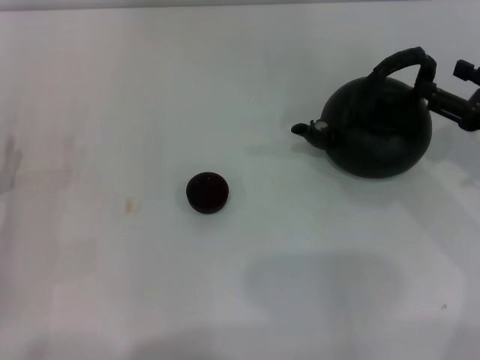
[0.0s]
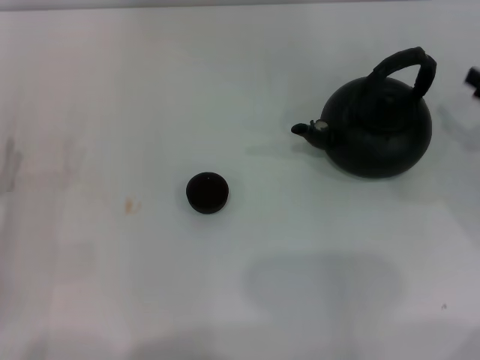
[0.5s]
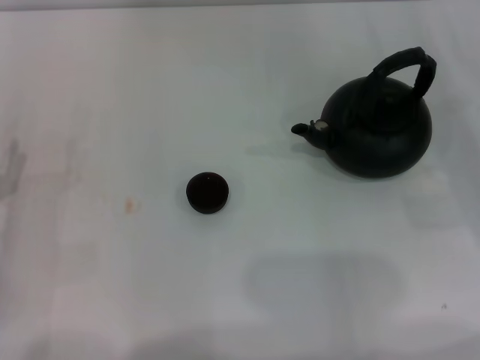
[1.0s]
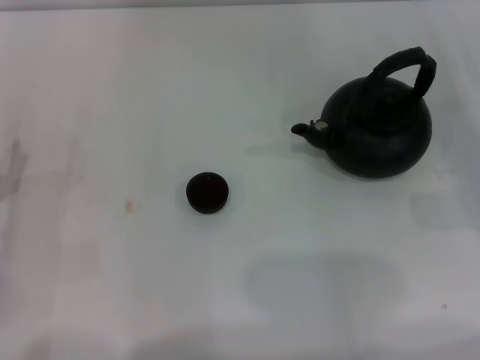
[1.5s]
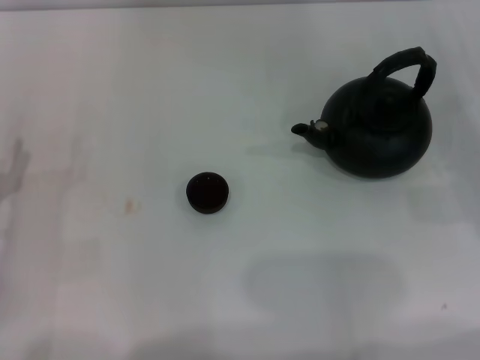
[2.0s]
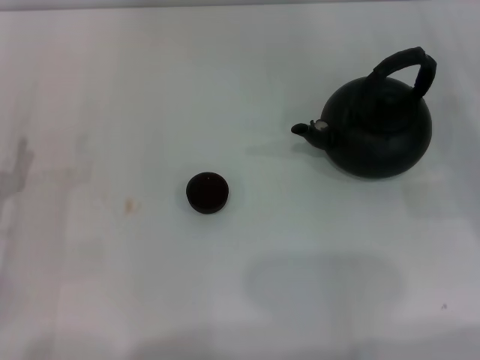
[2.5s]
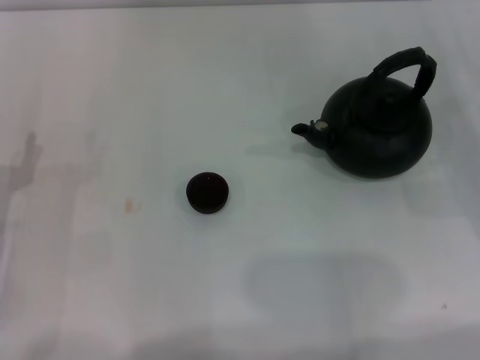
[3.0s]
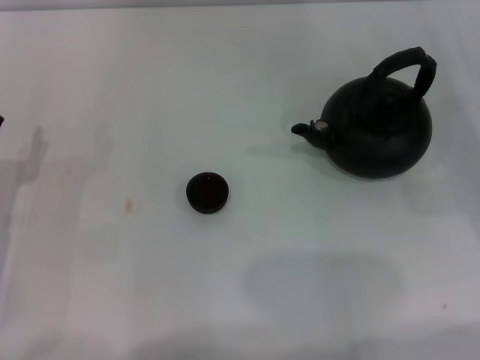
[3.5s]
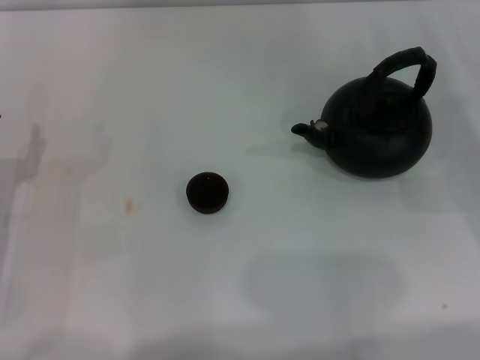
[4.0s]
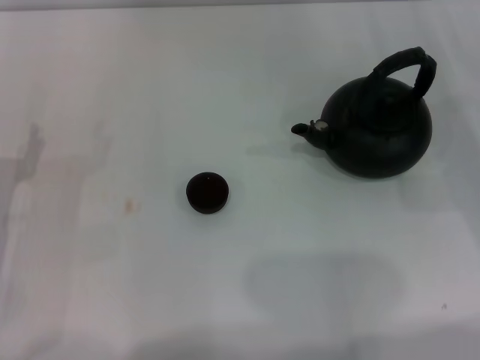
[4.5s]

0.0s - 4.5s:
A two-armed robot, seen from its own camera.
Task of the whole recording: Grasp the handle of the teapot with one hand and pour tea into the teacup.
0.0s - 2.0s: The right gripper moves some 5 cm.

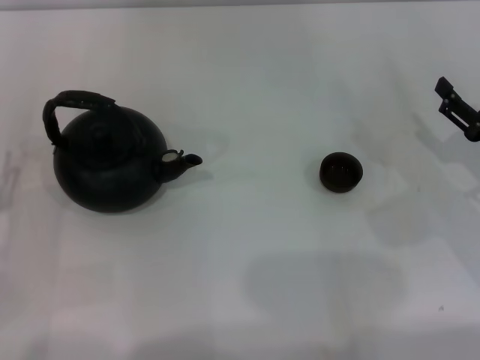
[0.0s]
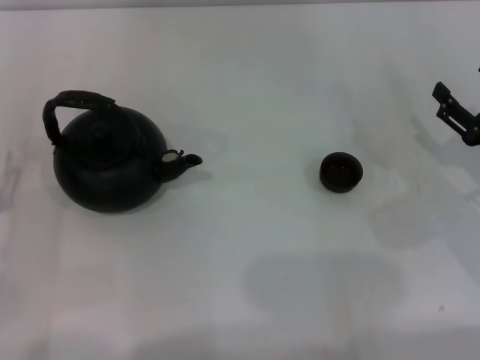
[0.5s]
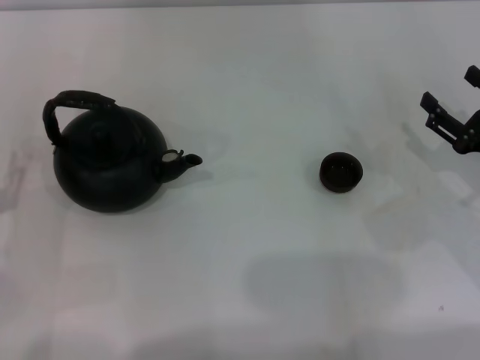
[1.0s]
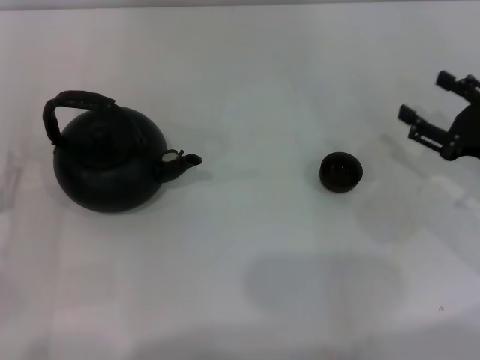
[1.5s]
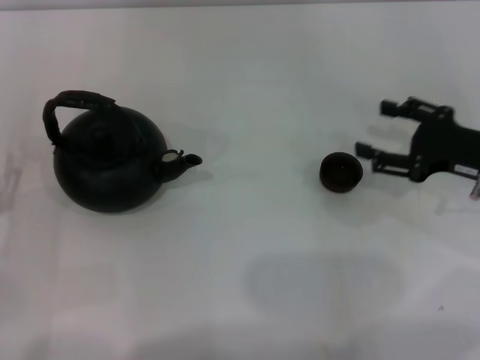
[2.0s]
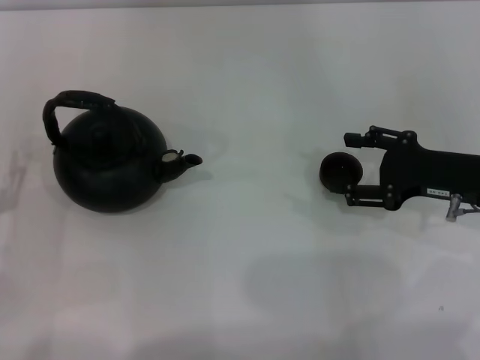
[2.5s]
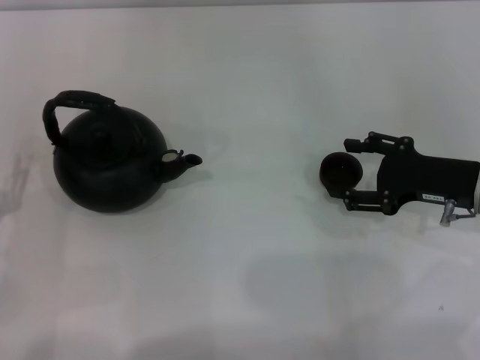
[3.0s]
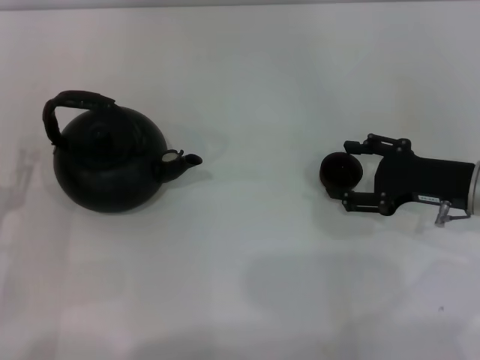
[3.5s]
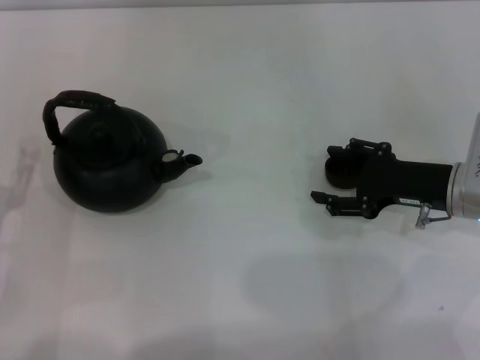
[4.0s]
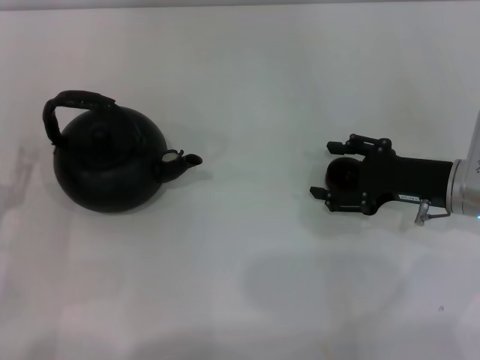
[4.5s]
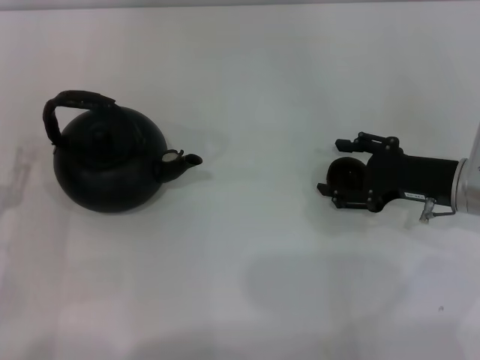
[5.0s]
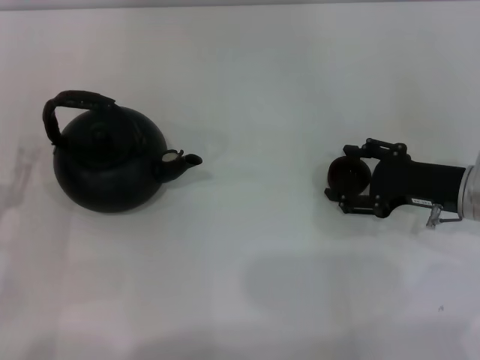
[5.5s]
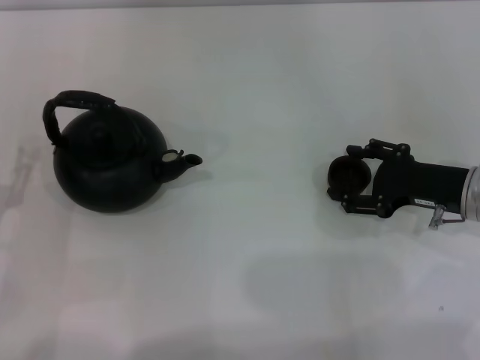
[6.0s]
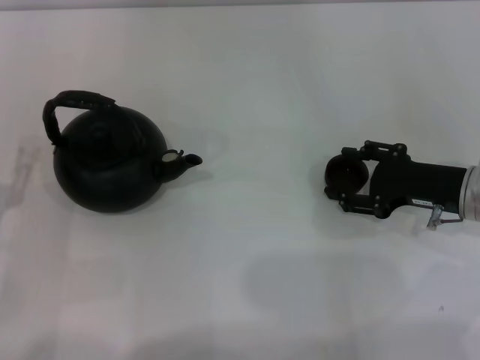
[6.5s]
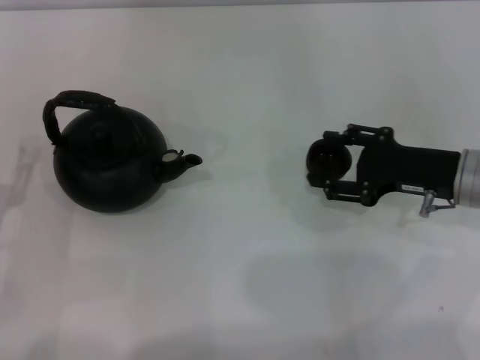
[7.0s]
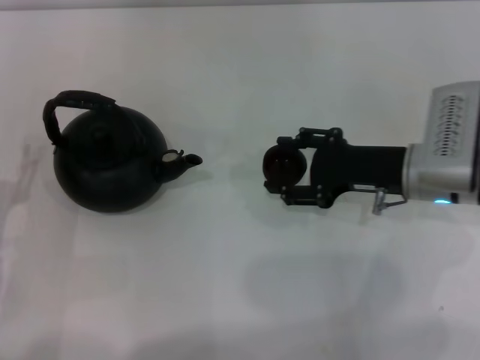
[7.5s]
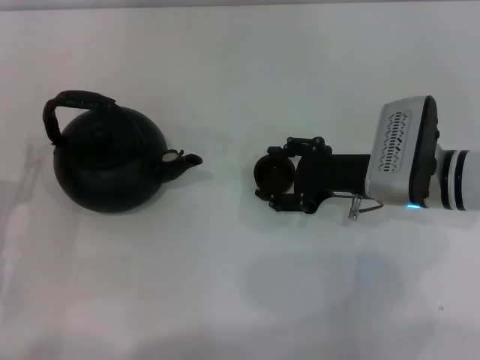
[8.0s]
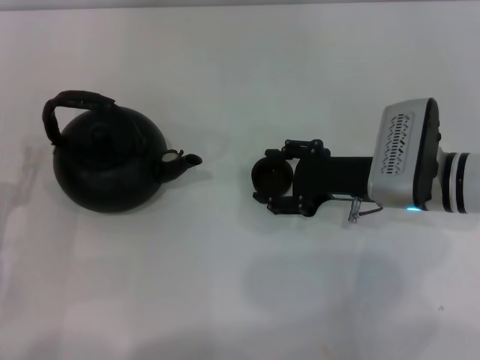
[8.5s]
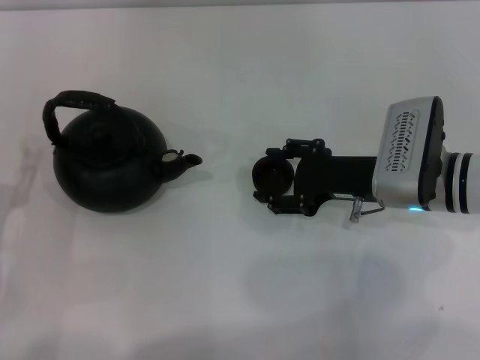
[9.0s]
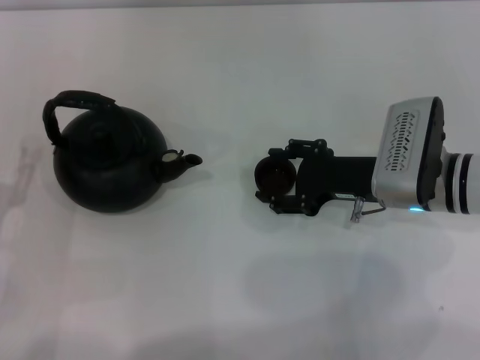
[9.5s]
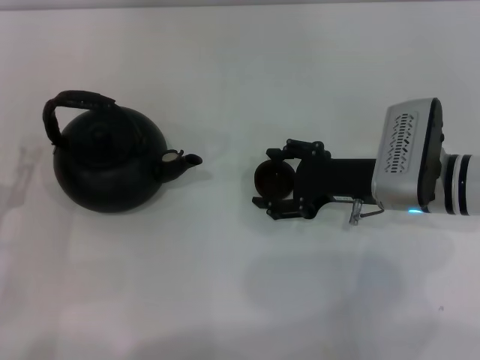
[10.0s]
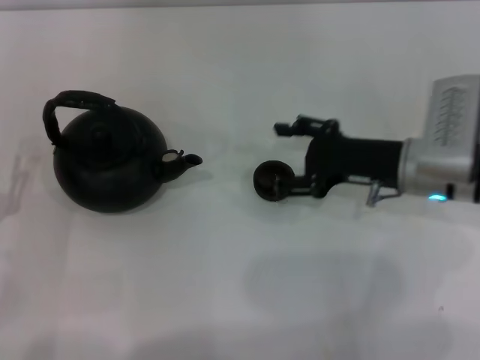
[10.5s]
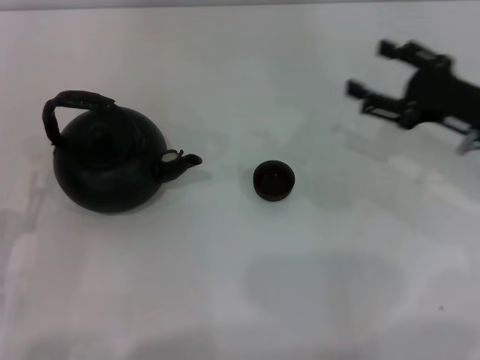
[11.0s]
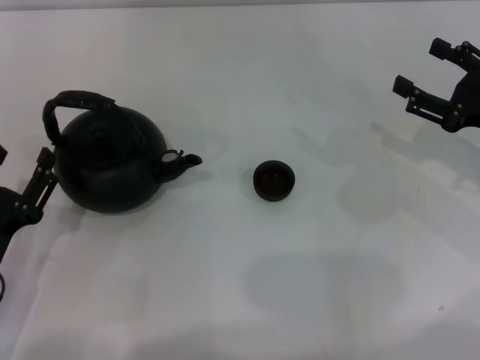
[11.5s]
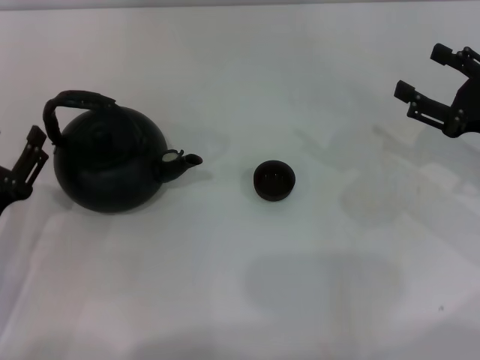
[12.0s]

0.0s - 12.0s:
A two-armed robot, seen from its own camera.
Task of the whole recording: Grasp the handle of the teapot with one hand and pour tea into the teacup.
Step, 0.0s - 6.5s: Pick up the teacup with the right gripper.
Step, 7.0s - 10.5s: Place the teacup in the center of view with the right gripper.
2.0s - 4.0s: The right gripper ends up about 5 cm from where it was.
4.0s - 6.0s: There are only small adjustments of the grippers.
6.0s - 8.0s: The right gripper shifts about 10 cm to the left.
8.0s - 10.0s: The right gripper opens its fingers.
10.0s - 12.0s: The right gripper travels to the right by some 15 cm, and opens up.

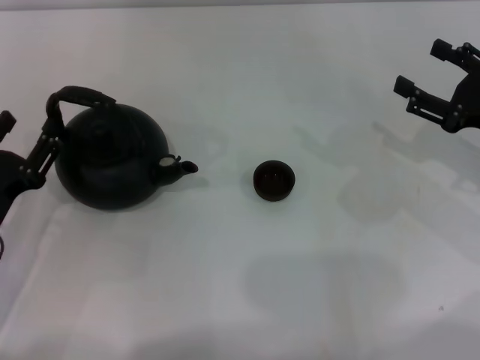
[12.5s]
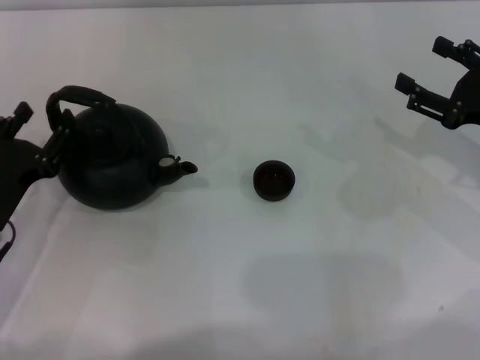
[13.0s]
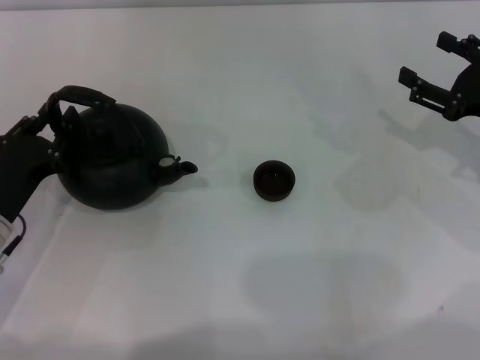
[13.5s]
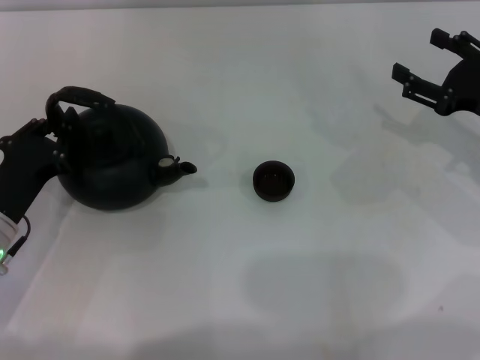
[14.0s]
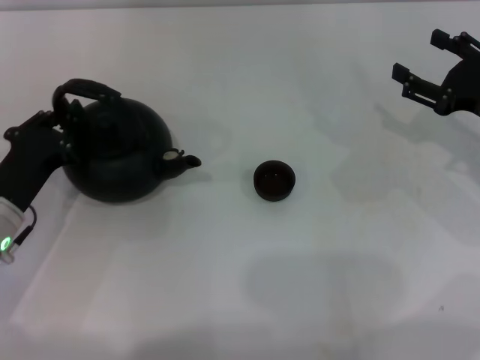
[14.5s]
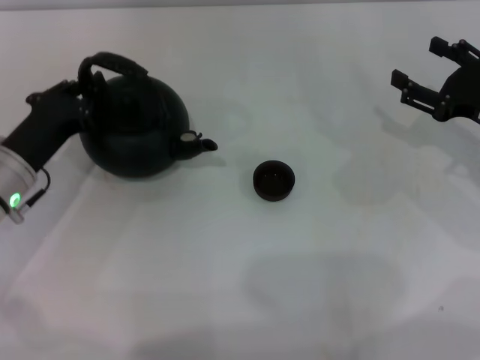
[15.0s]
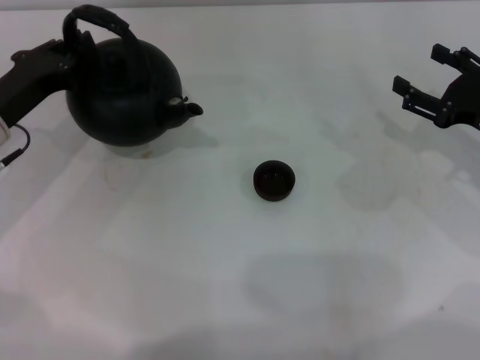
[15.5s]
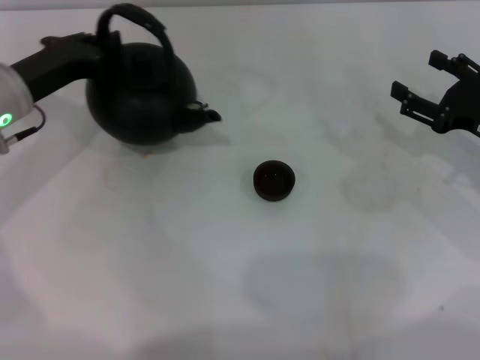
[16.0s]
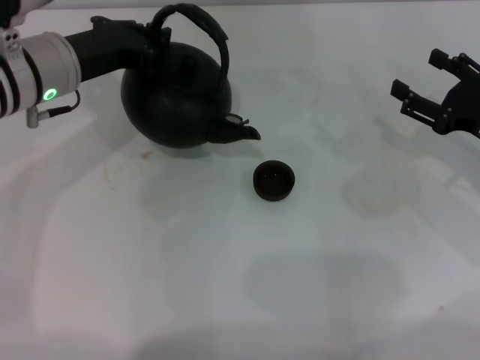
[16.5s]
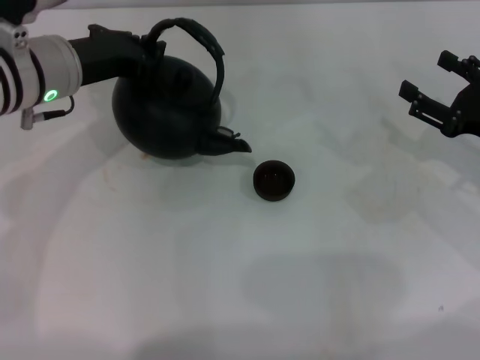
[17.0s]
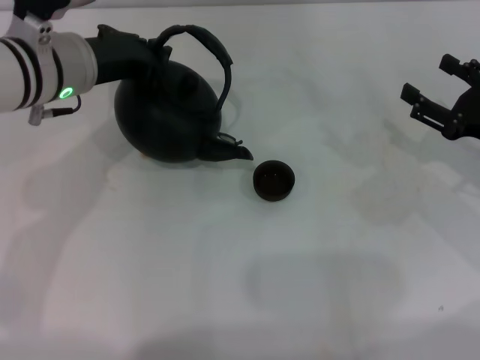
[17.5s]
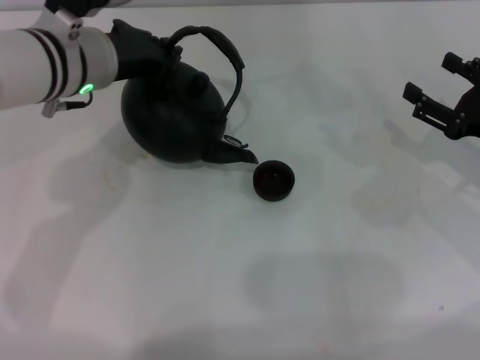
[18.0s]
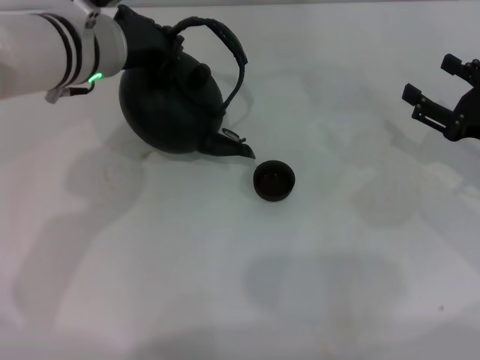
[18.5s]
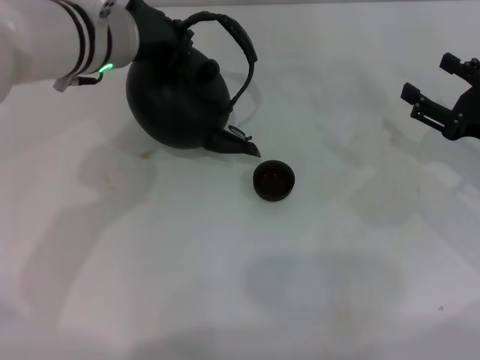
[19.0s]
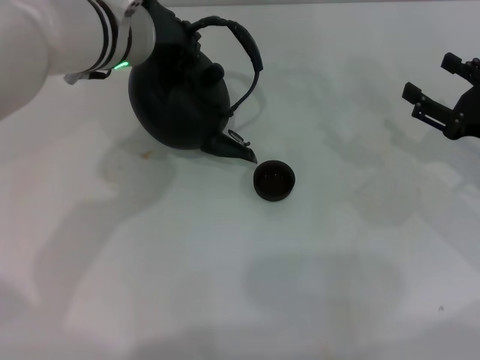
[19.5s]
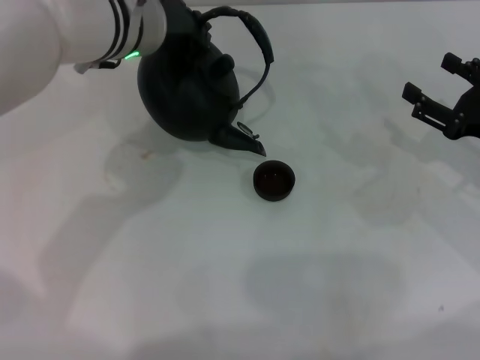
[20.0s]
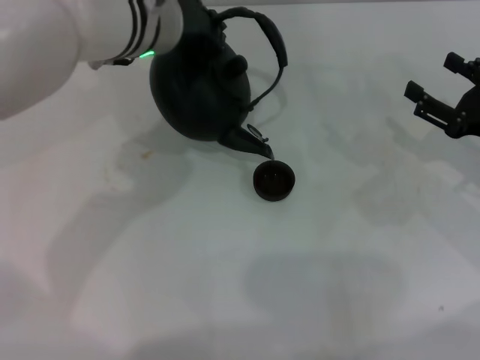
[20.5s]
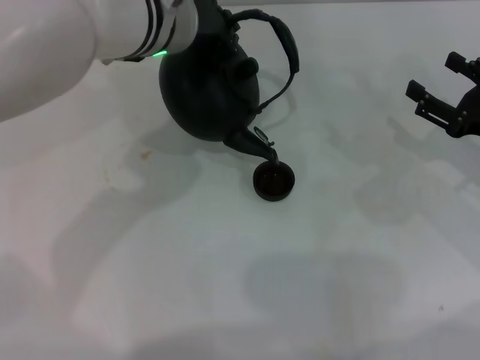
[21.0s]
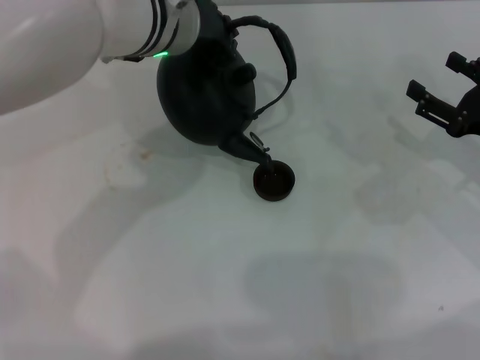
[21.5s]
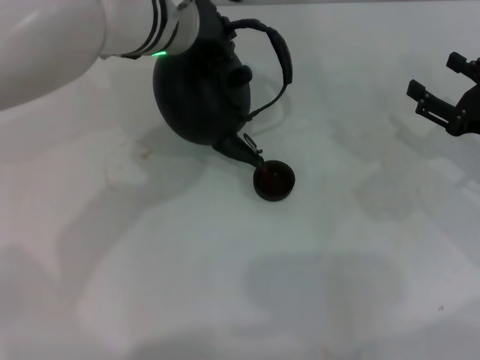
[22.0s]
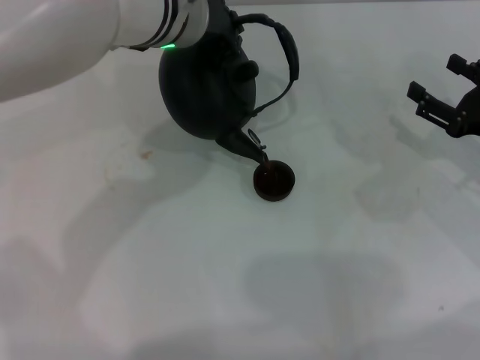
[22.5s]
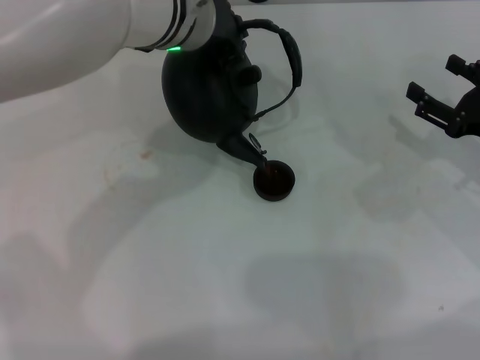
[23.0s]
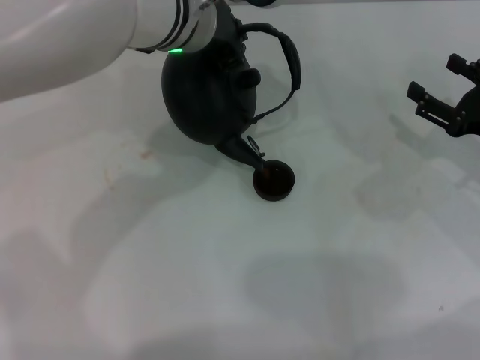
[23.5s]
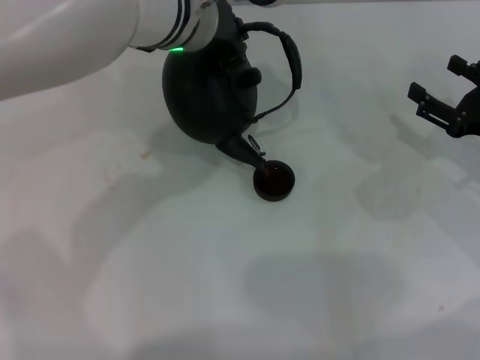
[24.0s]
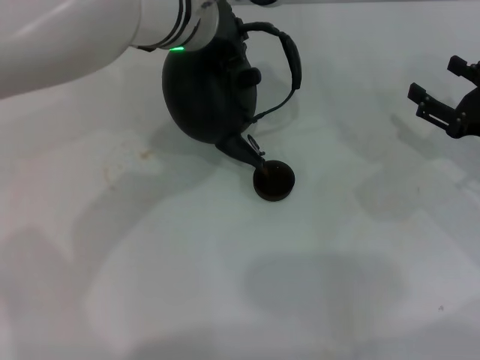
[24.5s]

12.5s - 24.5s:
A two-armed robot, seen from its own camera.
Task of the whole recording: Grasp the handle of the teapot with one hand and pour tea into the teacup.
Step, 12.5s - 15.5s: Pick up the teapot with the left gripper.
12.5s - 14.5s: The left gripper closes.
14.5s - 16.5s: The left gripper shifts approximately 20 cm forward, upward and to the right.
16.5s - 18.5s: The left gripper is displaced to the right by about 5 cm.
18.5s - 20.5s: The left gripper shifts about 5 cm to the right.
20.5s - 22.5s: The grippers make only small movements.
22.5s - 24.5s: Both grippers stay about where they are.
